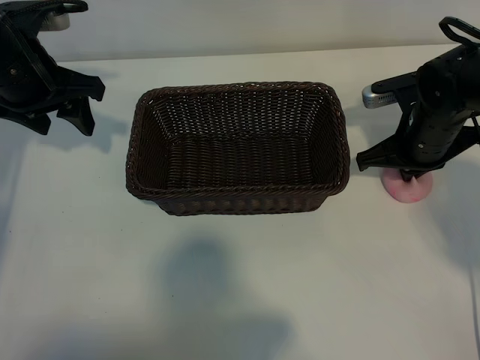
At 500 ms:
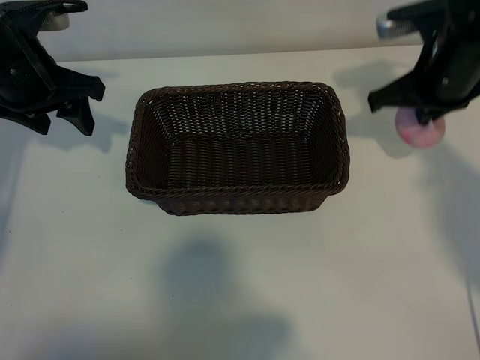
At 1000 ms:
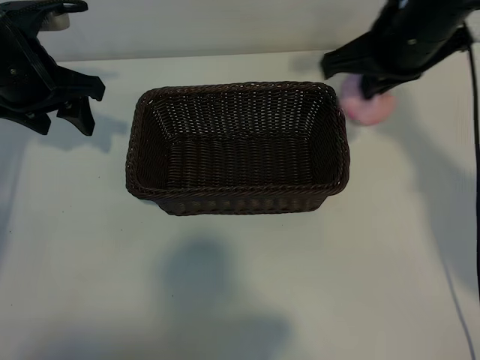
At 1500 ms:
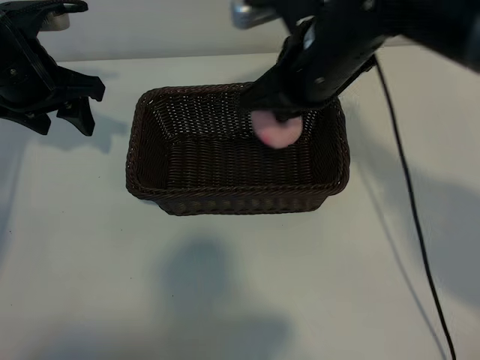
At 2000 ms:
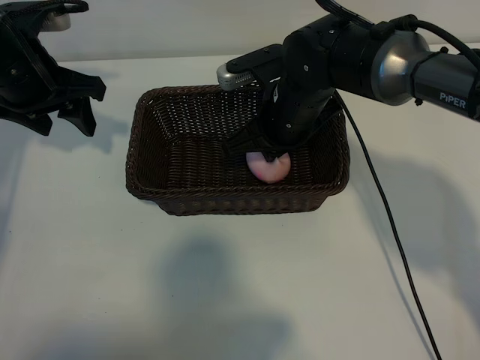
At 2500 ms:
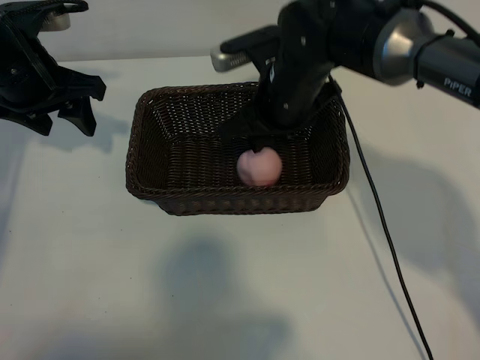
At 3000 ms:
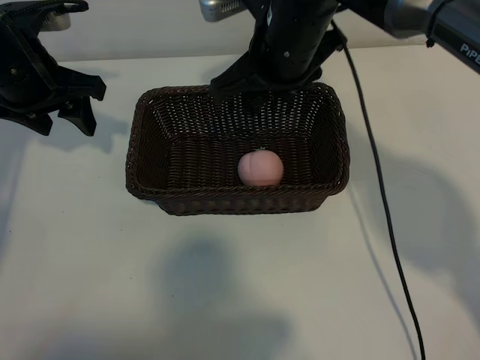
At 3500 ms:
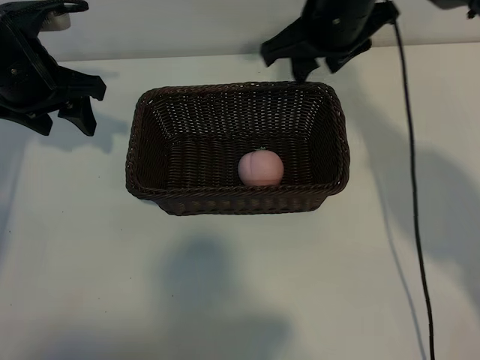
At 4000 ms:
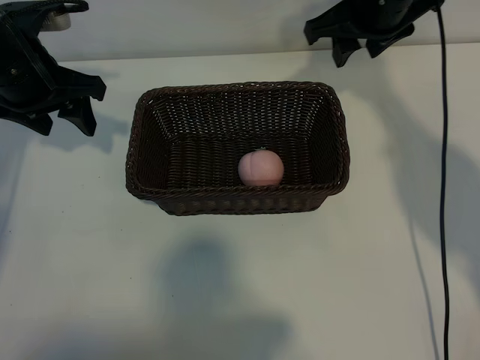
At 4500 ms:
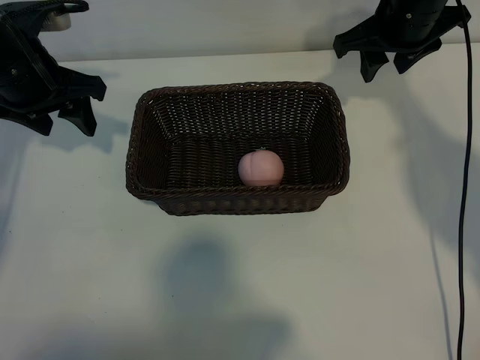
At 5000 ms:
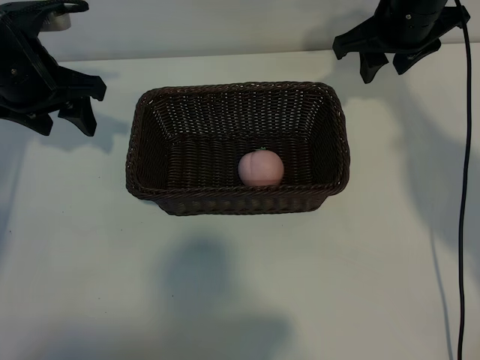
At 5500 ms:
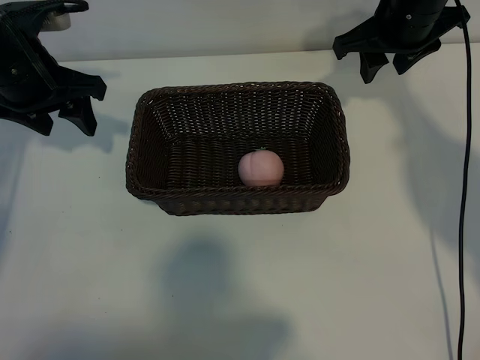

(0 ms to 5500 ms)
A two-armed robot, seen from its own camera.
Task of the whole recording: pick up the peach and put it into the basket.
Step, 0 ms - 2500 ms: Place the peach in the basket with right gripper.
